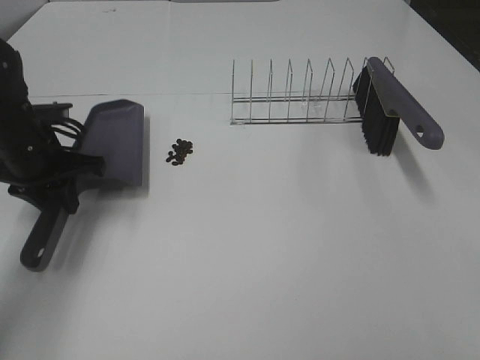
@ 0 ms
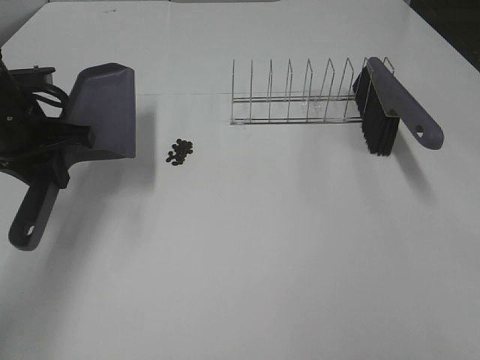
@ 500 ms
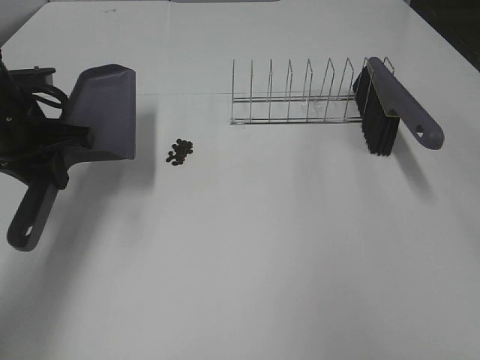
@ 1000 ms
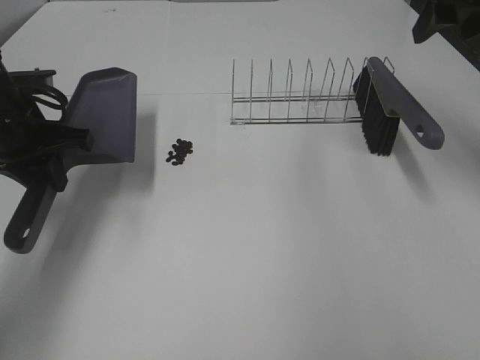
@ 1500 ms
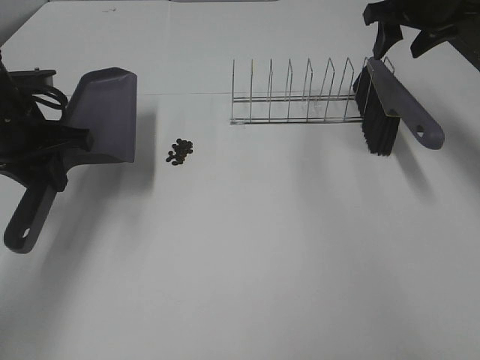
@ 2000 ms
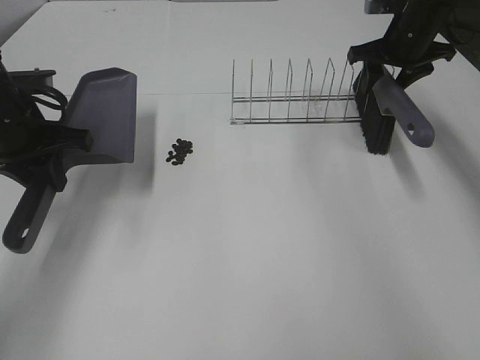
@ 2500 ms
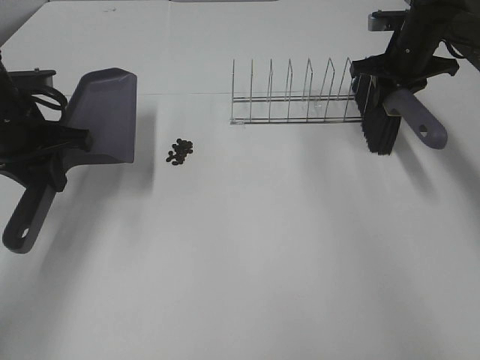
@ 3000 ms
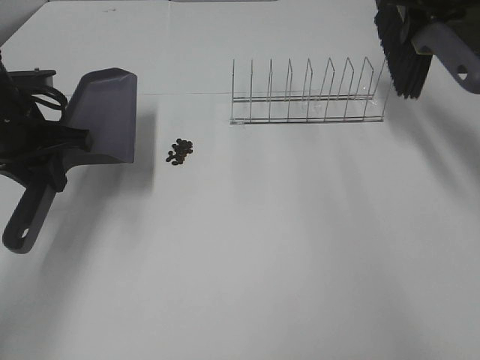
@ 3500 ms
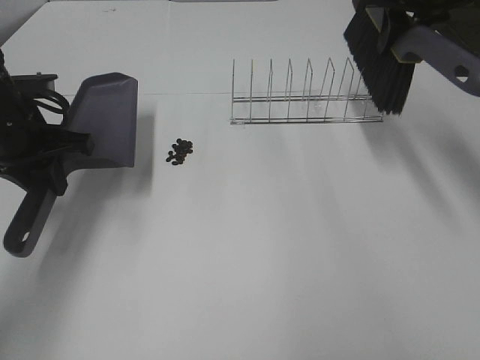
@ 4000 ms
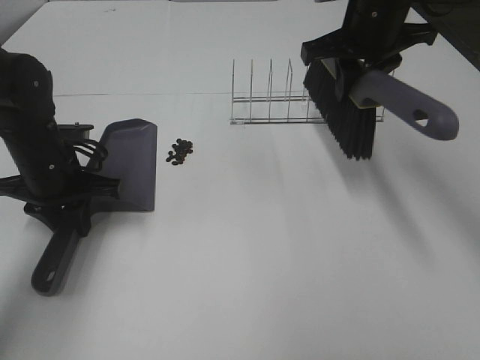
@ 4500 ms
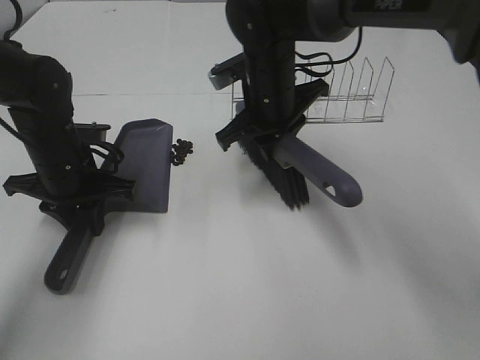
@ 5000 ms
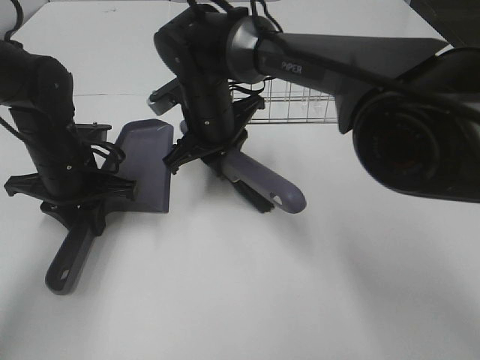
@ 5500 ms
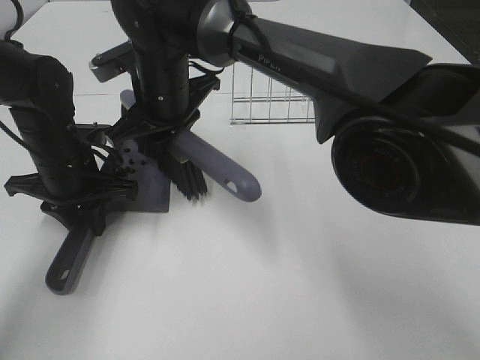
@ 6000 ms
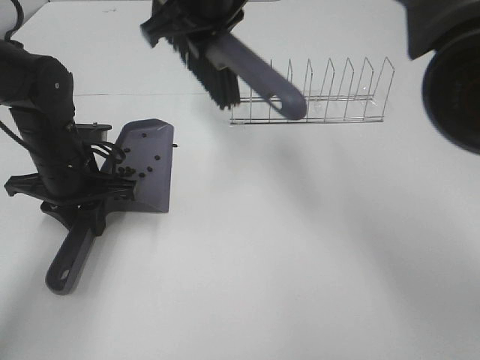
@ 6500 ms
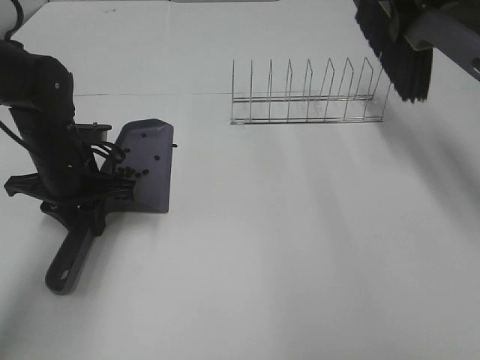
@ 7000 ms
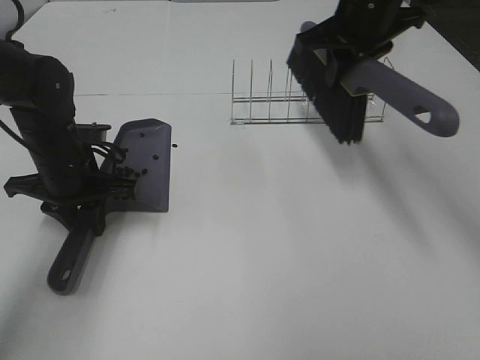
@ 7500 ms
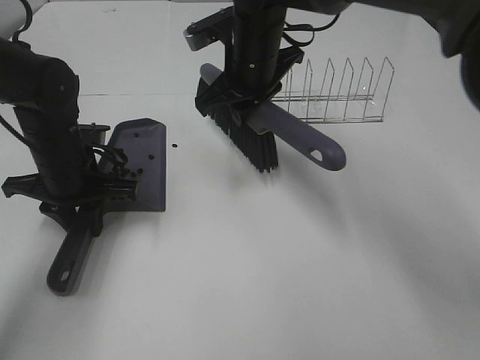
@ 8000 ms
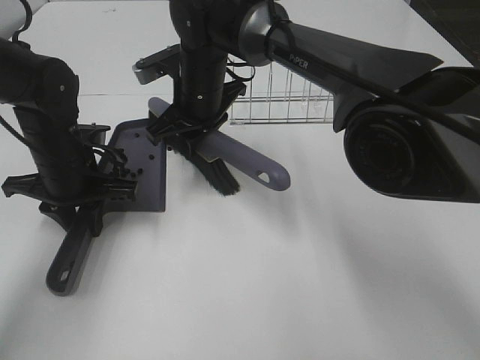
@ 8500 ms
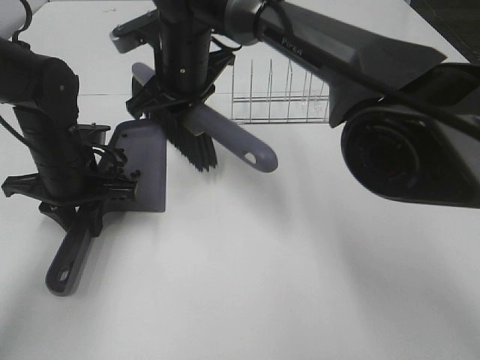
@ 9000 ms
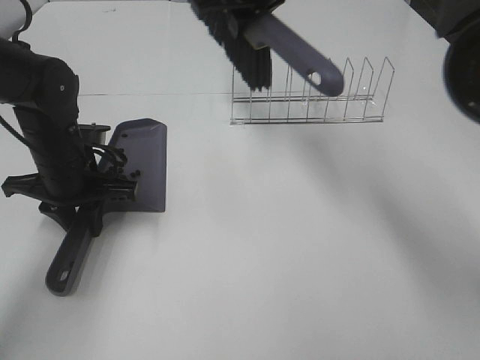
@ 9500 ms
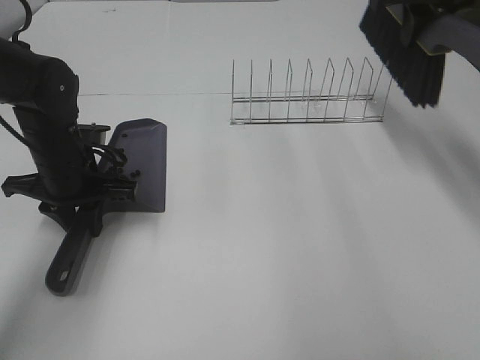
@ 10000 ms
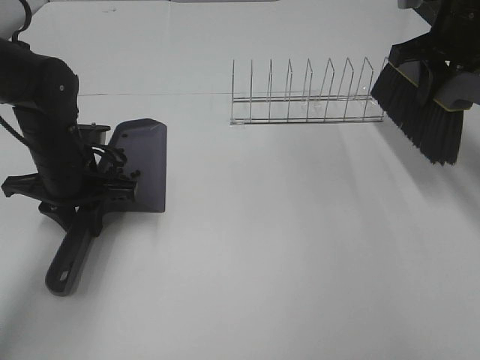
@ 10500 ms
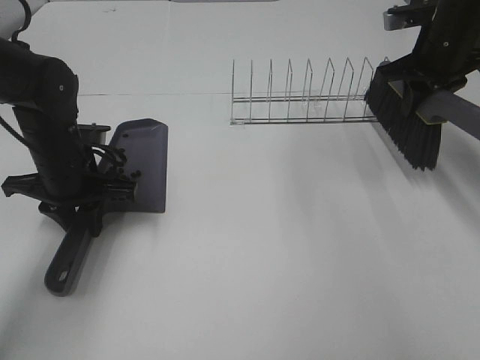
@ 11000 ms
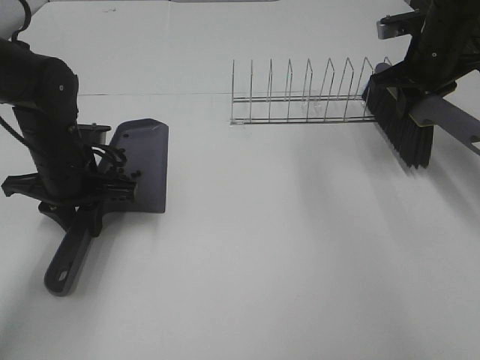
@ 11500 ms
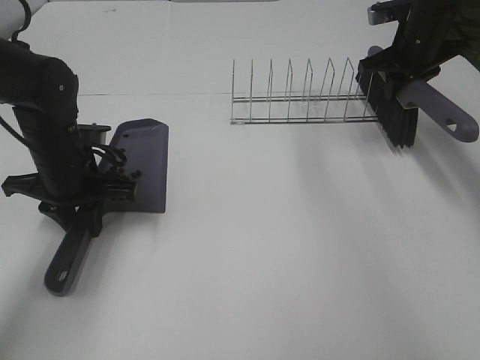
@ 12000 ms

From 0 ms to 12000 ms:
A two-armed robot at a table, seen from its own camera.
Task of the whole recording: Sweep Coffee Bean.
Step, from 500 ms to 3000 ms: Right hand:grab the broom.
Step, from 3500 ms to 9000 ms: Right hand:sweep the coffee beans into the dustpan.
From 0 ms to 2000 ms: The right gripper goes some 50 cm forward, and closes its fingers.
From 2000 ms to 4000 ms: The right gripper travels downward and back again, roughly 10 cm each way, and closes its fingers.
From 4000 ms to 6000 ms: The right gripper moves to the left, approximately 30 cm. Meanwhile the left gripper goes approximately 5 cm downward.
From 6000 ms to 8000 ms: The right gripper goes to the right and returns, approximately 30 cm each way.
From 8000 ms to 10000 ms: The right gripper heads to the right and upward, covering about 25 cm.
From 10000 ms to 12000 ms: The right gripper heads downward and forward, covering about 15 cm.

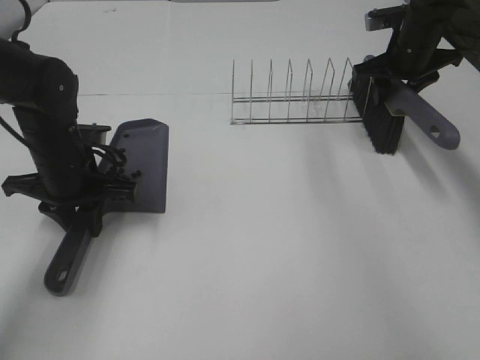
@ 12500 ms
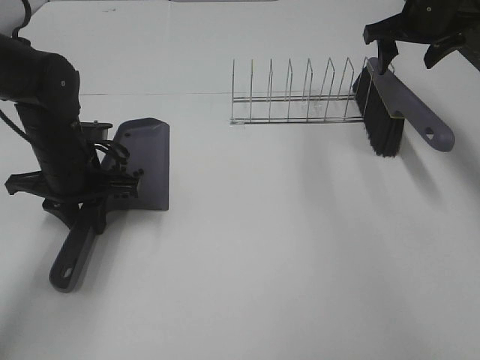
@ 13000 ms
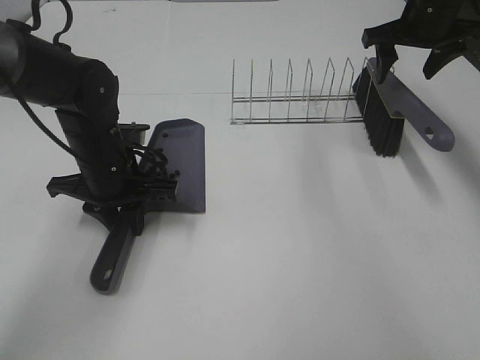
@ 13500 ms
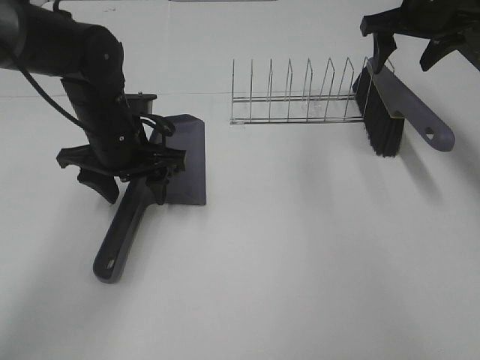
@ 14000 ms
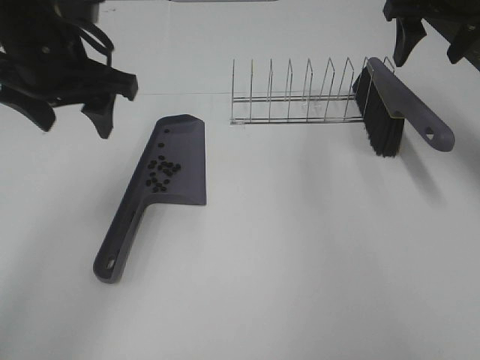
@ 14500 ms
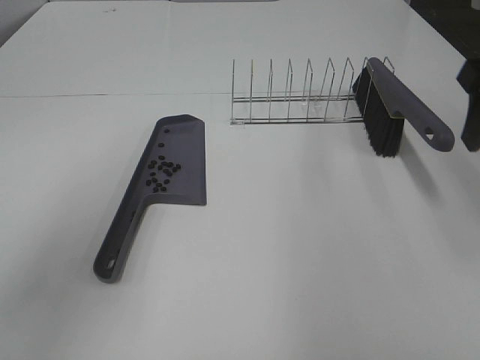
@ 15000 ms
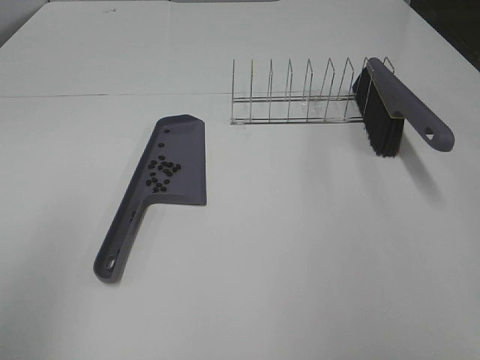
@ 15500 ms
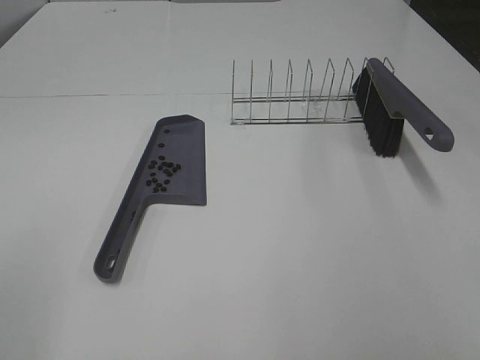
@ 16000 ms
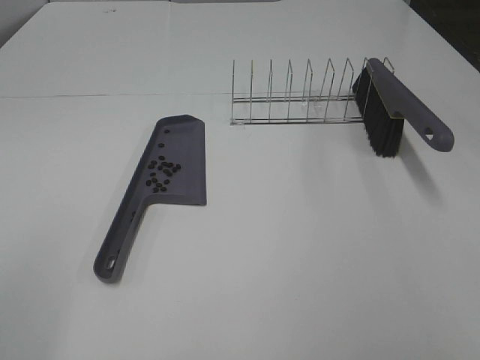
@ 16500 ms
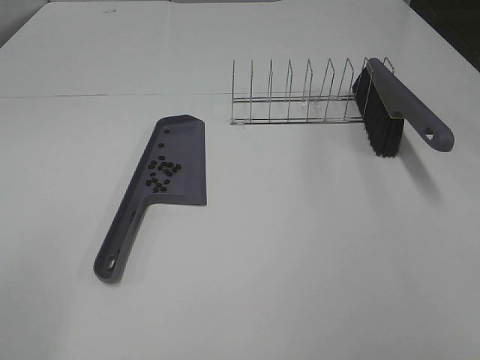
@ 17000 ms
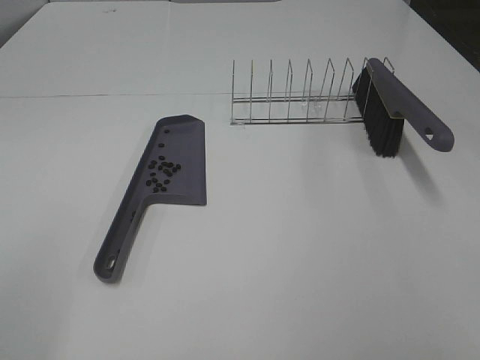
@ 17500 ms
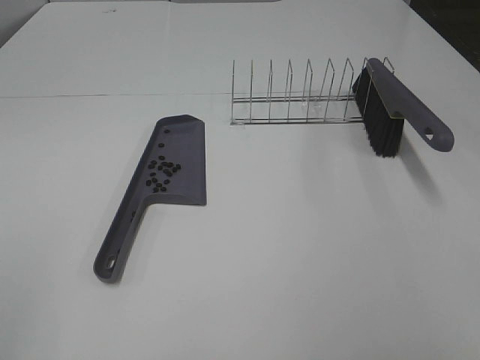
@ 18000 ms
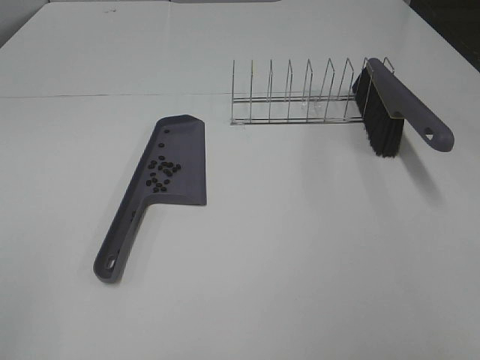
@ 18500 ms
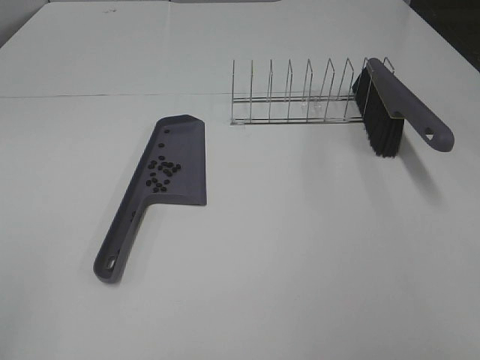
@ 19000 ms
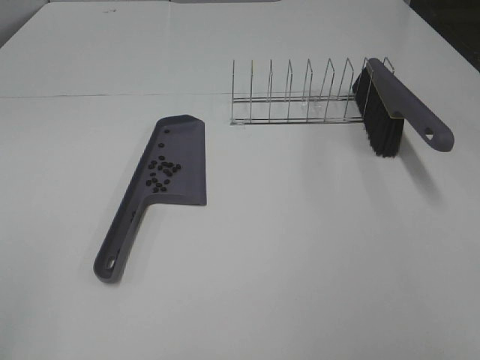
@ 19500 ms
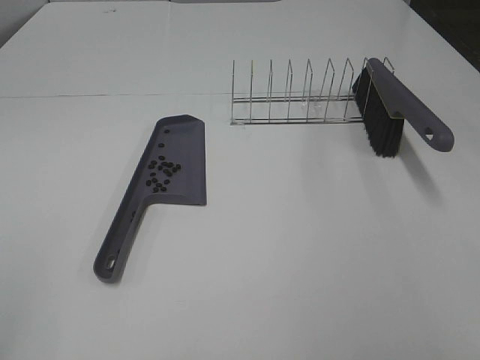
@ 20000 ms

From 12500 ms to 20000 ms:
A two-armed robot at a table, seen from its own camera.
Task of the whole recording: Sweep Coffee Bean.
Step, from 13000 ms to 14000 ms: Left hand:place the dustpan on the table.
From 12500 ms to 14500 ms: The right gripper moves upward and backward, roughly 15 cm; the left gripper is displaced upward by approximately 20 cm, and opens its fingers.
From 14500 ms to 16500 ms: The right gripper goes some 40 cm backward. The left gripper travels backward and to the left by approximately 35 cm.
From 18000 ms to 20000 ms: Both grippers stay put.

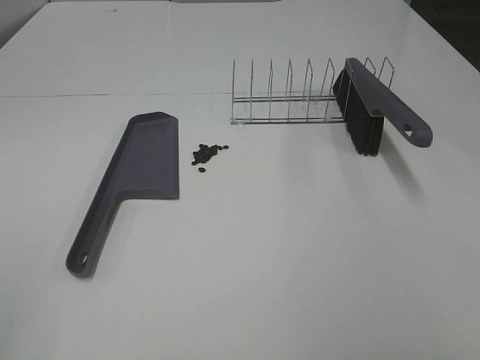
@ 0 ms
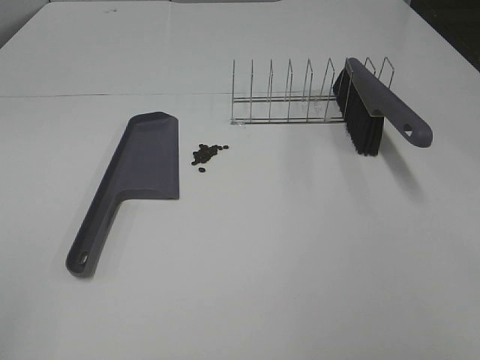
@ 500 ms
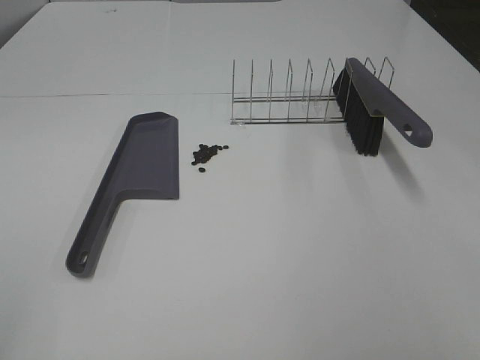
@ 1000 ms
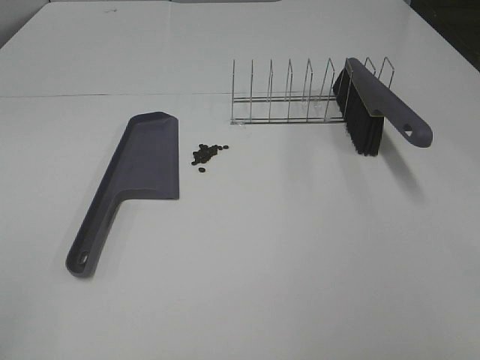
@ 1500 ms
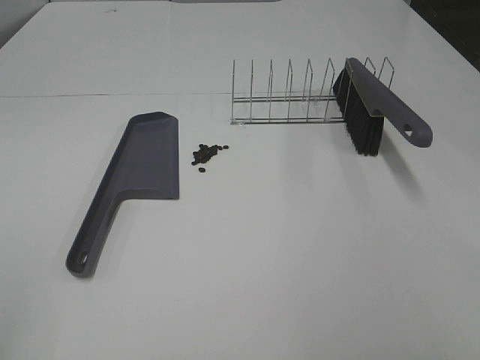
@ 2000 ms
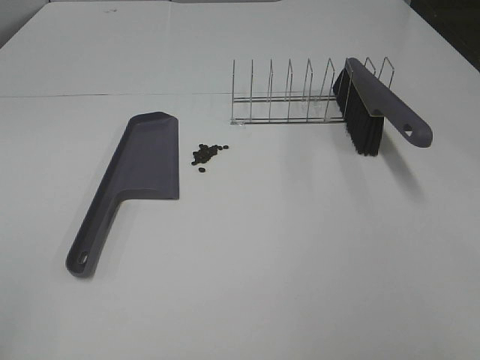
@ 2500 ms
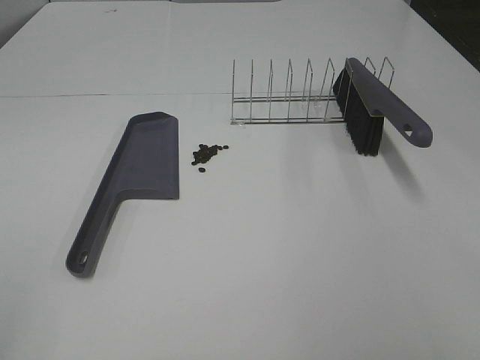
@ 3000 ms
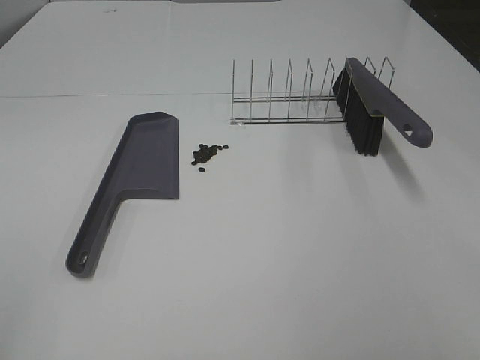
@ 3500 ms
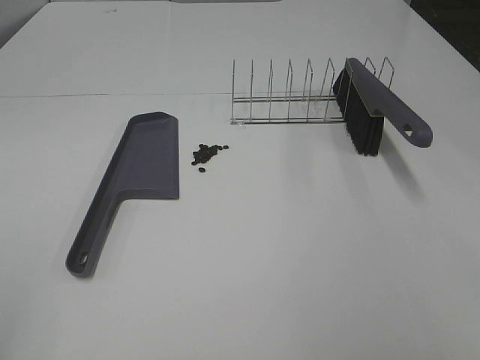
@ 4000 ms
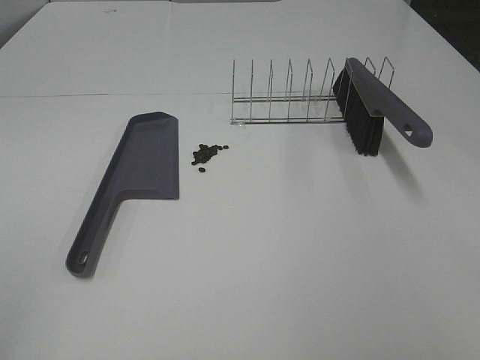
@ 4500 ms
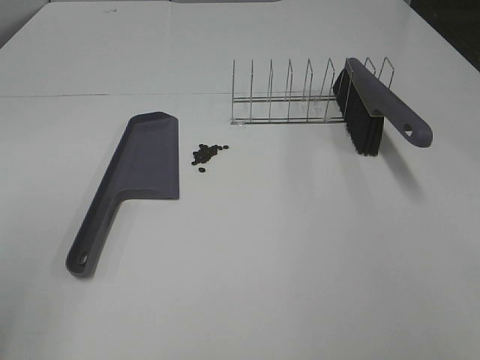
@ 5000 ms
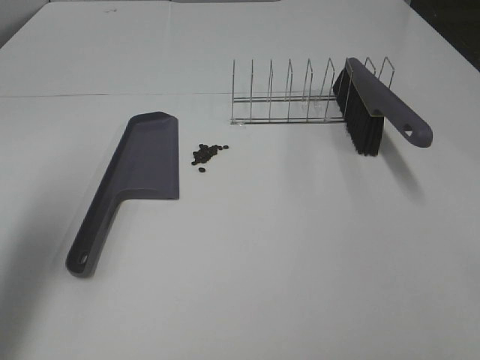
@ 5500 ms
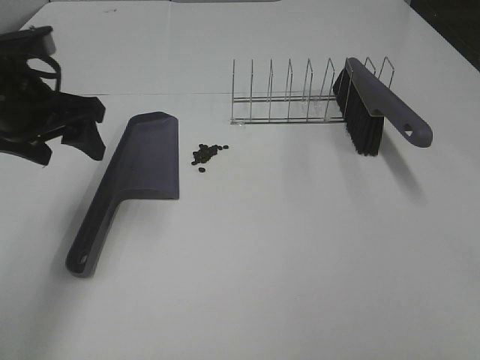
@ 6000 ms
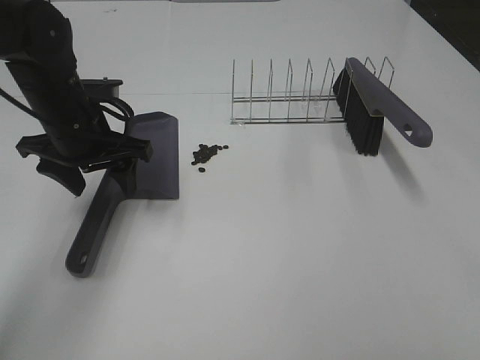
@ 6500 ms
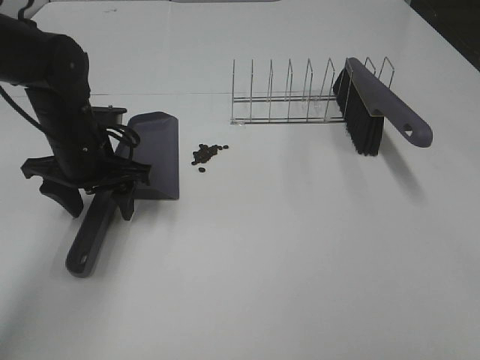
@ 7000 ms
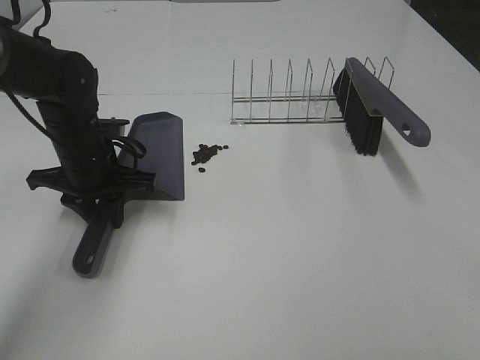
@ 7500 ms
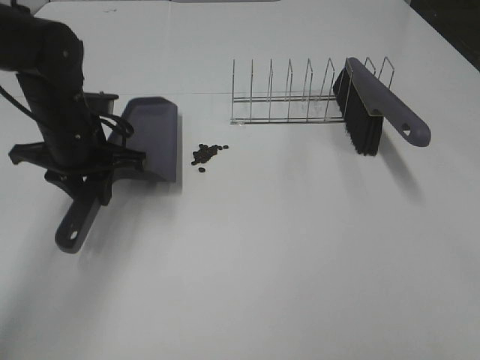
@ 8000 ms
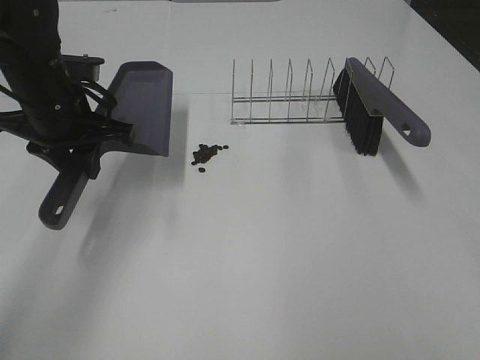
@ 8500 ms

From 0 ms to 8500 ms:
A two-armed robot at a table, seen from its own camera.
Task of the whole recording: Sweep Coffee Bean.
Step, from 0 ms to 7500 ms: Left hand: grab the dustpan.
From 0 ms to 4000 ms: The two grippers keep their place.
From 4000 ms to 6500 ms: The left gripper is displaced forward and to the right by about 40 cm.
From 6500 ms to 8500 ms: The right gripper moves forward, about 5 cm; the left gripper closes.
